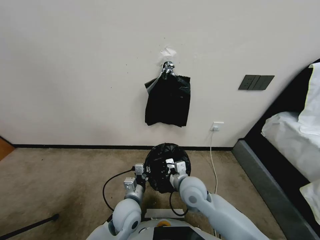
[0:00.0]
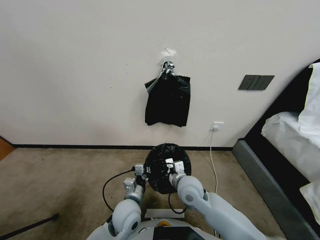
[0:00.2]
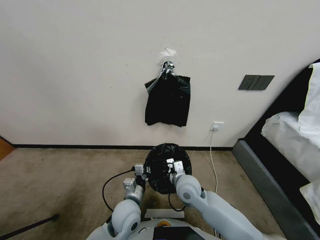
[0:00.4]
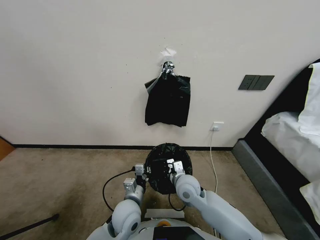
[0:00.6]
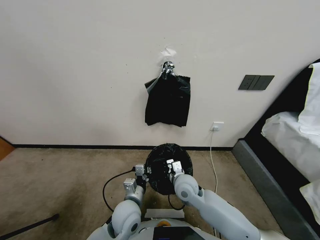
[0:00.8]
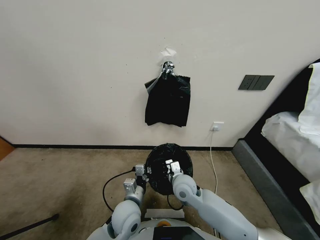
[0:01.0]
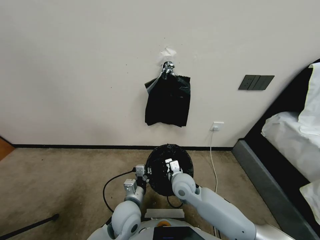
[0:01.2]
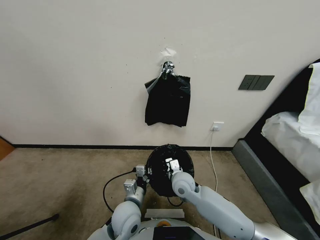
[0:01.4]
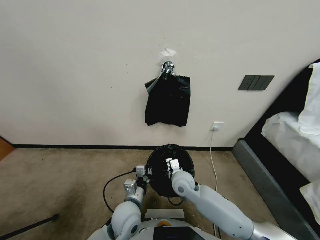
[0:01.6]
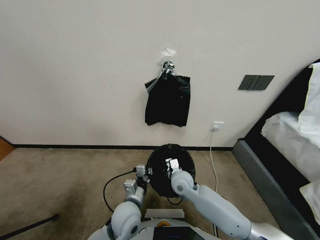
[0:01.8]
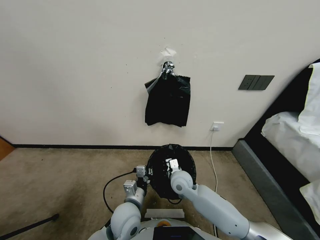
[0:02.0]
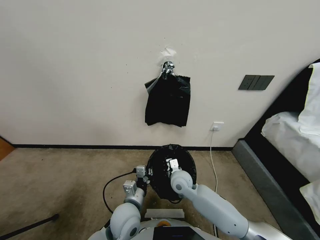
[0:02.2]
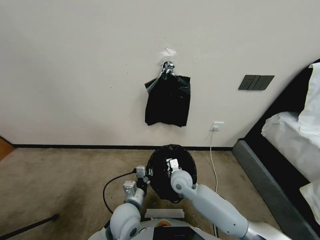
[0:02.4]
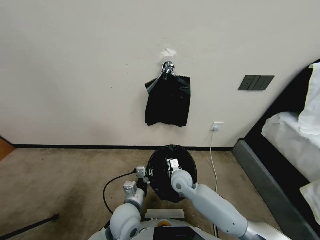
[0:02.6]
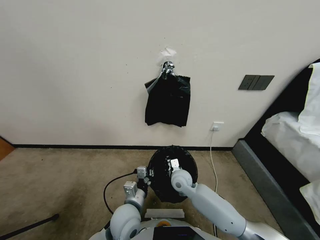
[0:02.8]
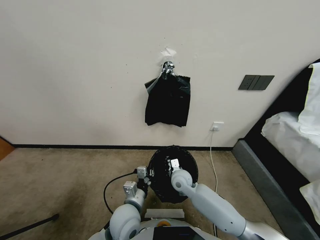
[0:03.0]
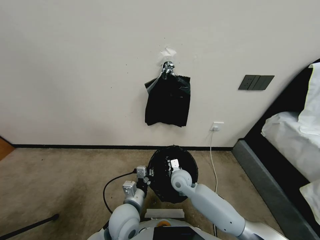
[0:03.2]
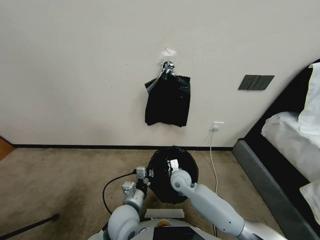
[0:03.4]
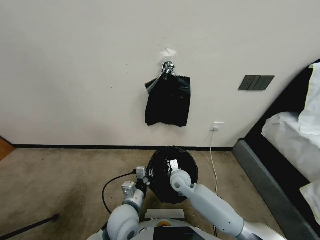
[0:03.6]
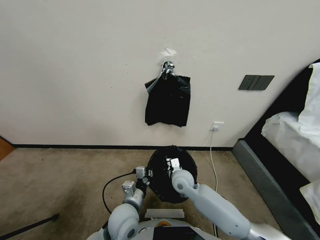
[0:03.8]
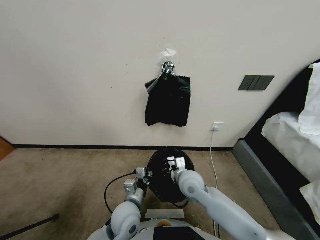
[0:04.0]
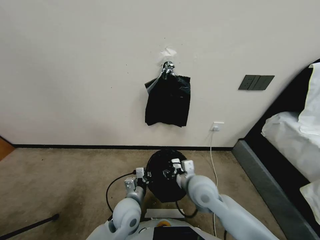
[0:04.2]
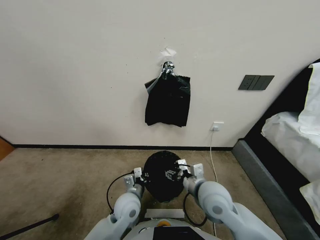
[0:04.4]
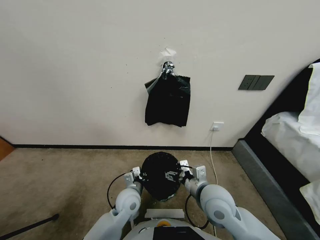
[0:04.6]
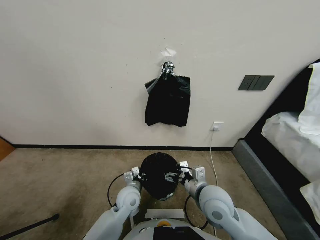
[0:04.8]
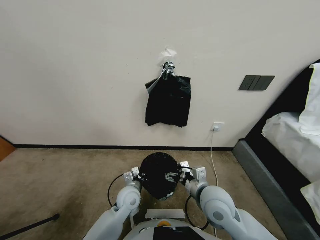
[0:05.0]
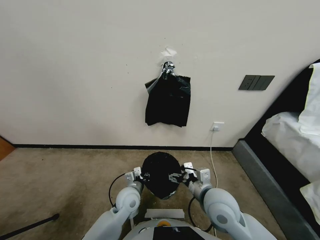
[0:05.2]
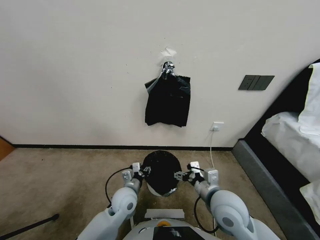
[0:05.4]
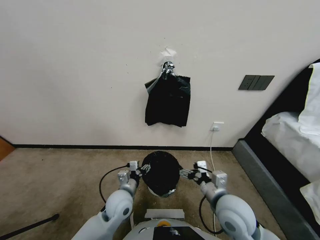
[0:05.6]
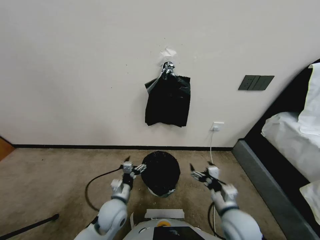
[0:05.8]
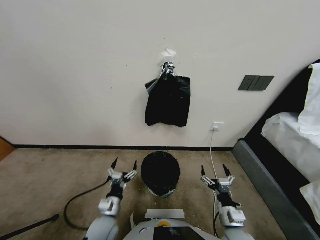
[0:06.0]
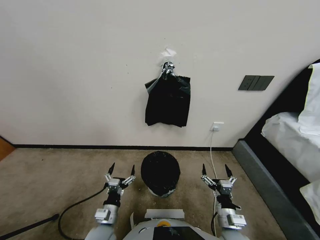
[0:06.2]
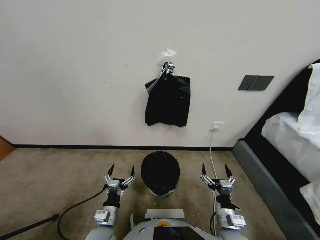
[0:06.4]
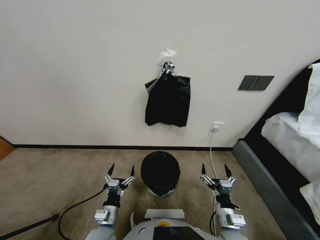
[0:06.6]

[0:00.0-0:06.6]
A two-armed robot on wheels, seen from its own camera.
Task of the whole recording: Place a trash bag onto the trash bin.
0:00.0 to 0:01.6: The right gripper moves approximately 5 cm.
0:01.6 to 0:03.2: The grippers move only a little.
0:03.2 to 0:05.0: The left gripper travels forward and downward by about 10 cm, while the right gripper travels upward, backward and to the right by about 20 cm, and opens its fingers.
0:05.0 to 0:06.6: The left gripper is displaced backward and to the left by about 15 cm, and opens its fingers. The right gripper moves downward, backward and to the right, some 15 cm.

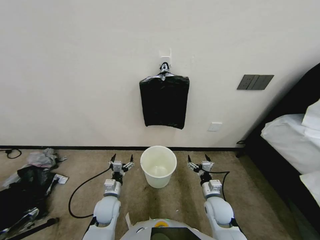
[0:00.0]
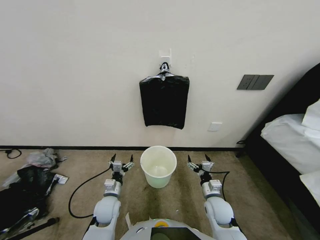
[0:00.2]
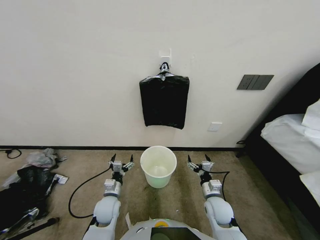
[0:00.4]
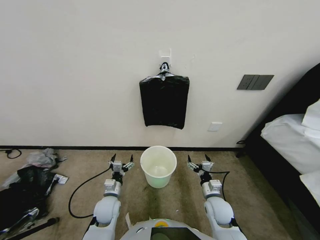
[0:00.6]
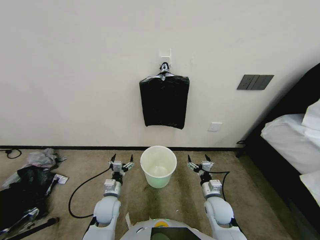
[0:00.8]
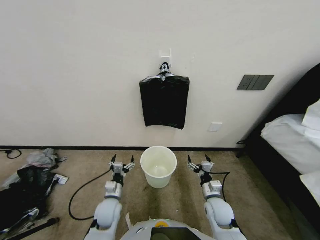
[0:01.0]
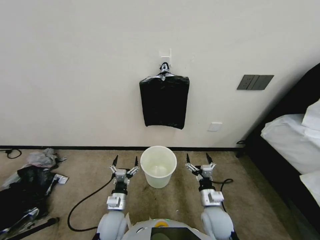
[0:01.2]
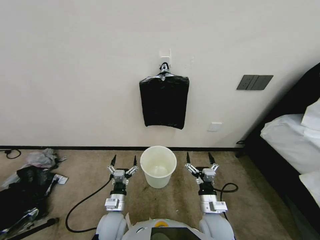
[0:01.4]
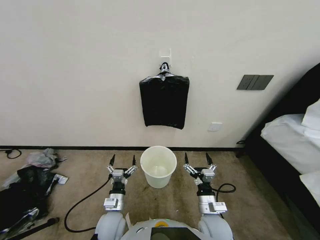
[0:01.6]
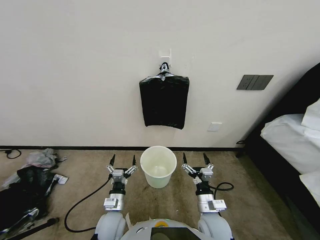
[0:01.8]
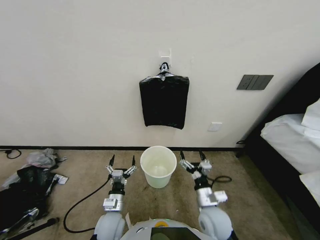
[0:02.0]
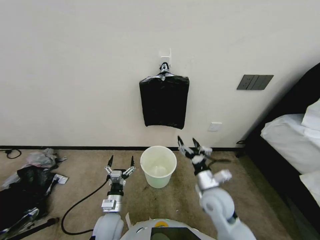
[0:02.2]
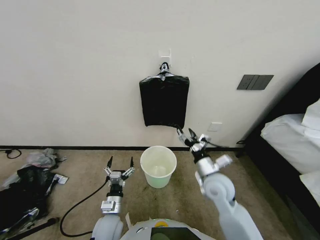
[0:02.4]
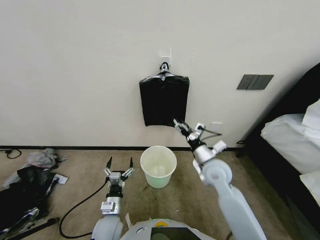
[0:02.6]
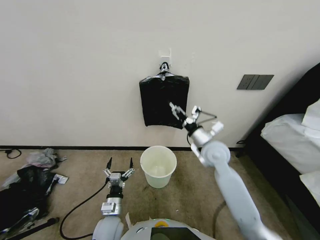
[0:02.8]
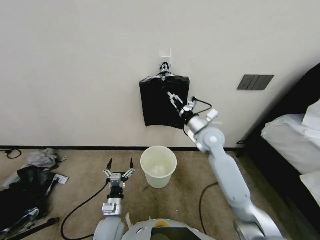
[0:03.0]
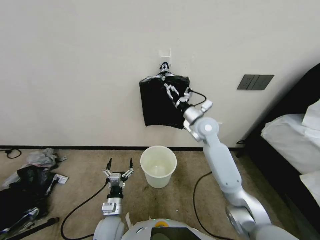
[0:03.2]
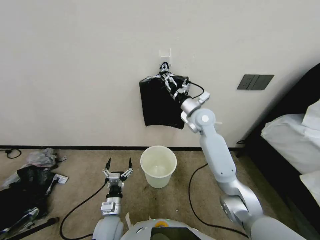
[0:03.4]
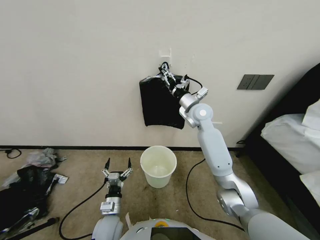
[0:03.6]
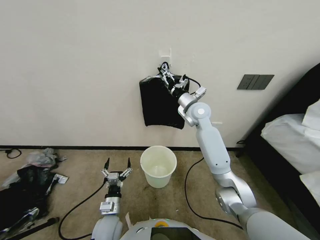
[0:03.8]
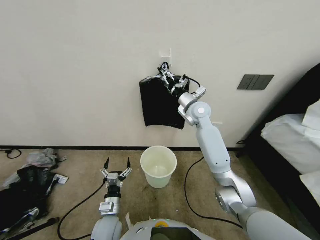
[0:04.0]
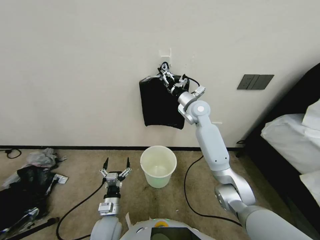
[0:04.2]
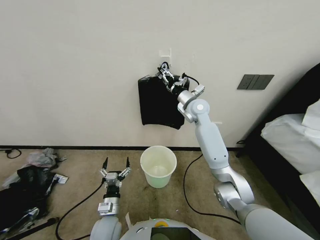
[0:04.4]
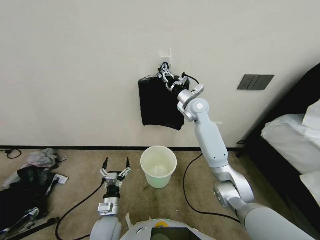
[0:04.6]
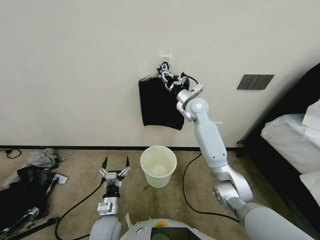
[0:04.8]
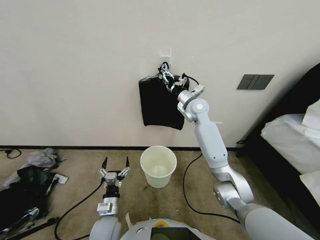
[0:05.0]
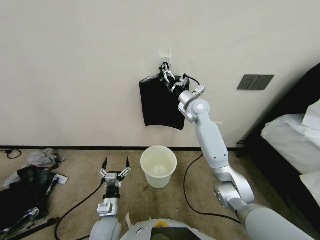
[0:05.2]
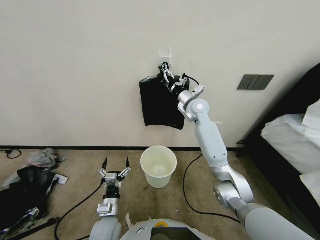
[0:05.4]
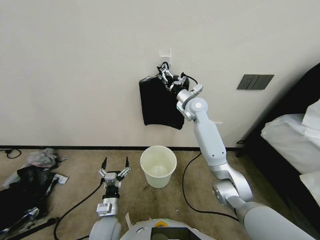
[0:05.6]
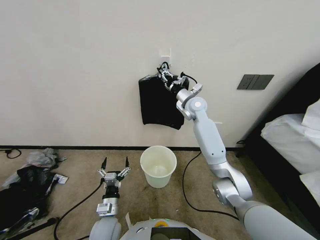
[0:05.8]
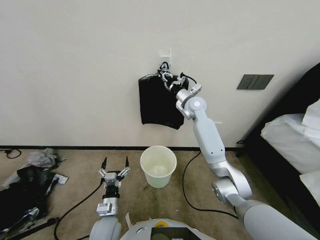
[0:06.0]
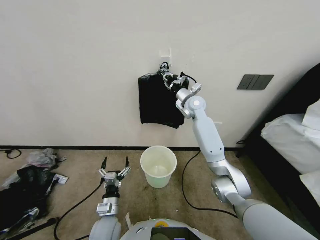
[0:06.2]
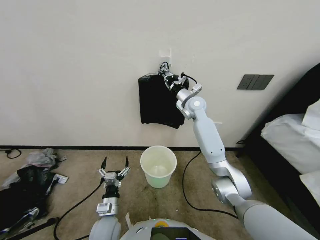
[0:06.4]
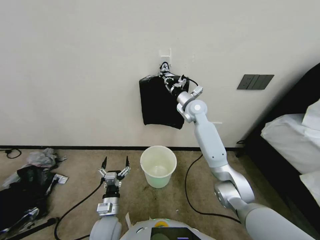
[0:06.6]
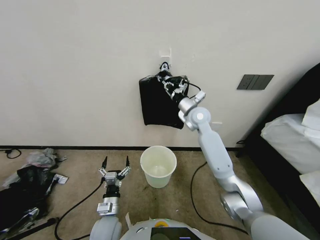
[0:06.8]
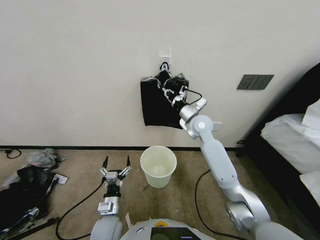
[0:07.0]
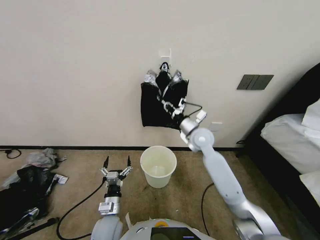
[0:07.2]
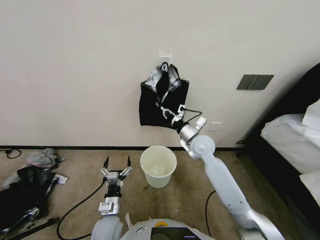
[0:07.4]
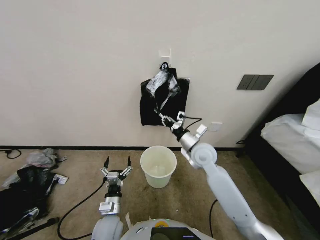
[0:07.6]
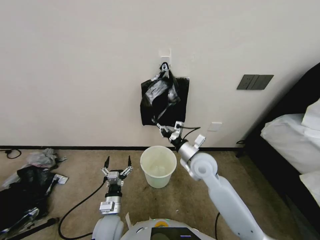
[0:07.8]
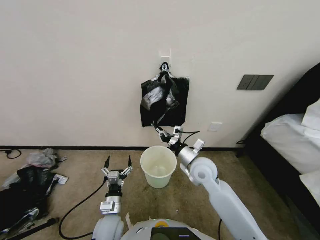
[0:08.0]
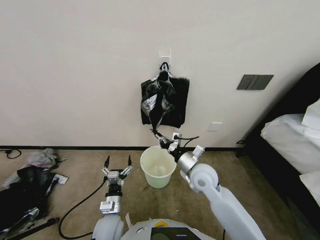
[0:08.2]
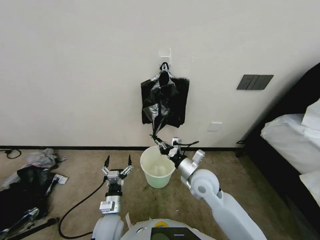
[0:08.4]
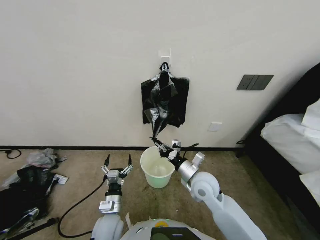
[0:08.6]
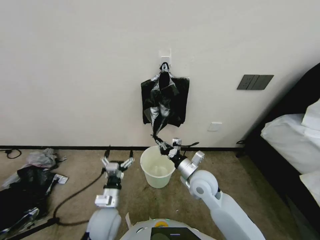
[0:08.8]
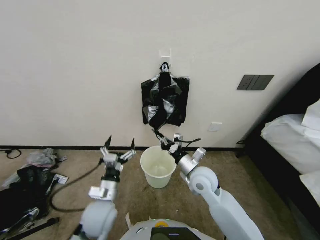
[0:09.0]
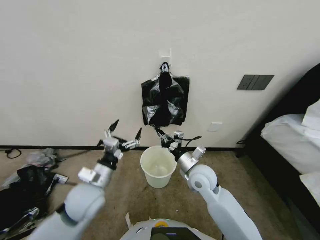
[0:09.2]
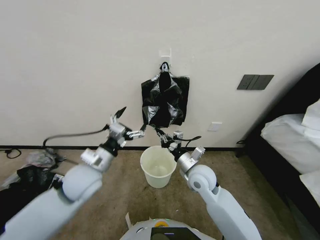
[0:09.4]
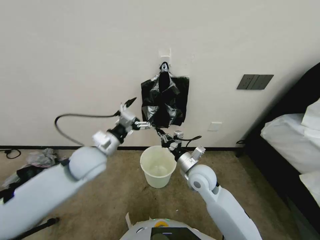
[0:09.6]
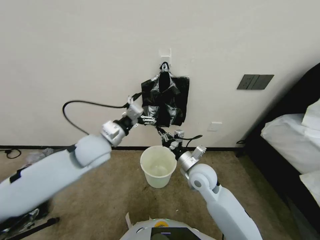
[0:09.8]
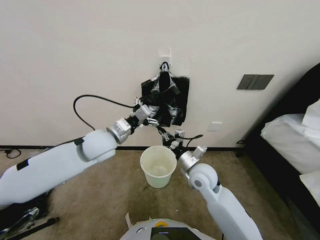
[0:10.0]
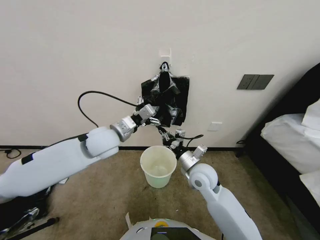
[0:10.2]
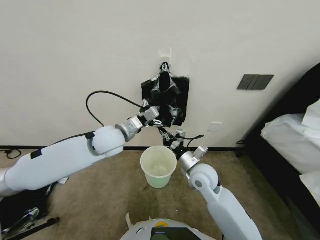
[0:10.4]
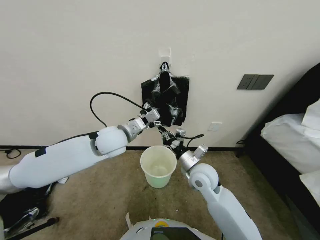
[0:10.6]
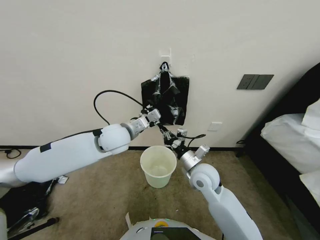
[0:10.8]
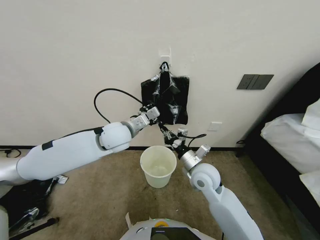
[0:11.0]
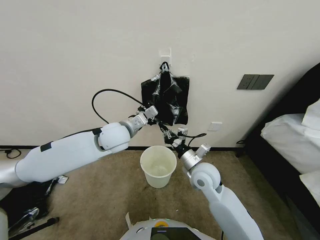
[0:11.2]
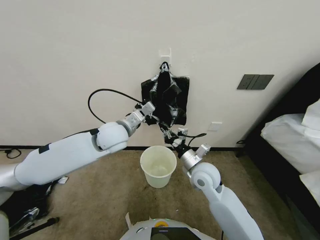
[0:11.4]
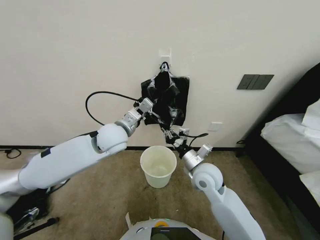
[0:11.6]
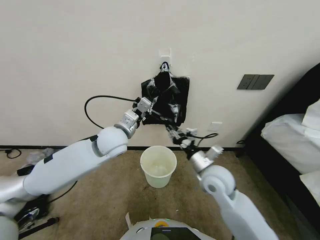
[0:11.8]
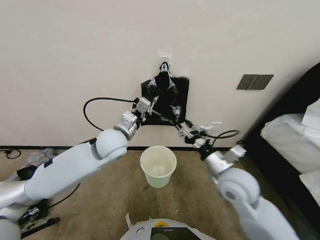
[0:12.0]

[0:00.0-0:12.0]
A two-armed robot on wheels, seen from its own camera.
Task of the whole recording: Place a trash bag onto the trash bin.
0:01.6 to 0:03.0: The right gripper goes about 30 cm forward and upward.
0:03.0 to 0:04.4: The right gripper moves forward and upward, about 15 cm.
0:04.4 to 0:06.0: The right gripper closes its fingers.
0:06.0 to 0:07.6: The right gripper is displaced backward and downward by approximately 20 cm, and closes.
0:07.6 to 0:09.0: The left gripper heads upward, covering about 10 cm. The right gripper moves backward and downward, some 10 cm.
0:09.0 to 0:10.4: The left gripper moves upward and forward, some 25 cm.
0:10.4 to 0:12.0: The left gripper closes its fingers. Meanwhile the right gripper moves to the right, approximately 5 cm, and opens its fingers.

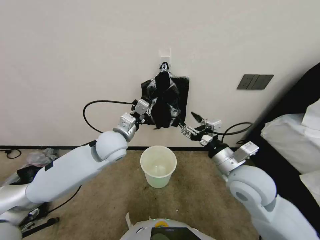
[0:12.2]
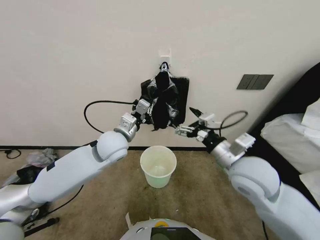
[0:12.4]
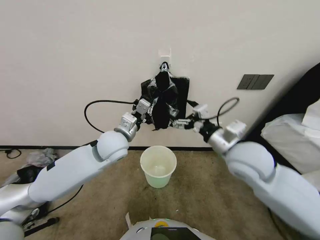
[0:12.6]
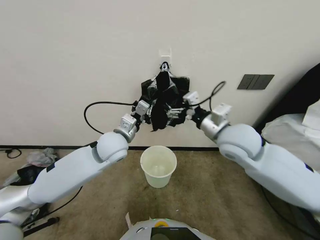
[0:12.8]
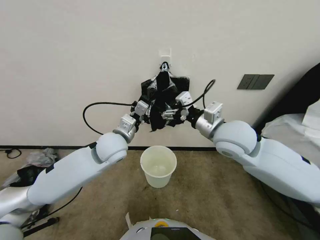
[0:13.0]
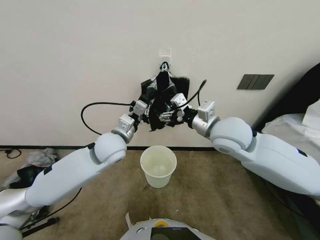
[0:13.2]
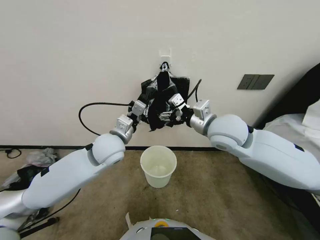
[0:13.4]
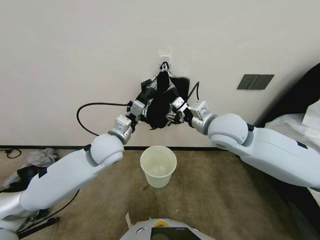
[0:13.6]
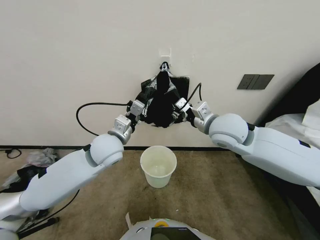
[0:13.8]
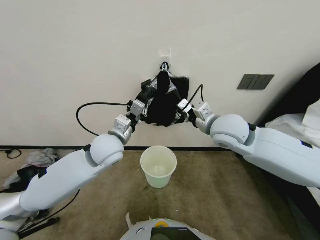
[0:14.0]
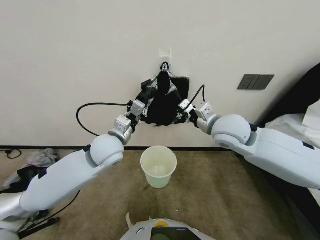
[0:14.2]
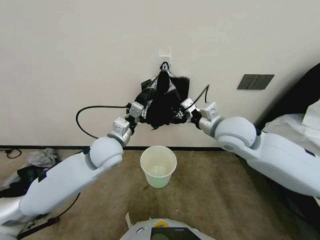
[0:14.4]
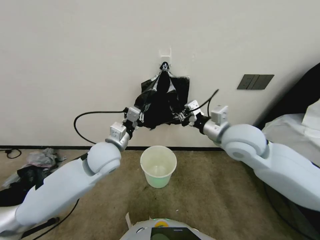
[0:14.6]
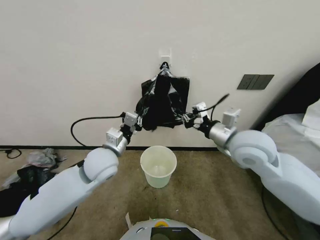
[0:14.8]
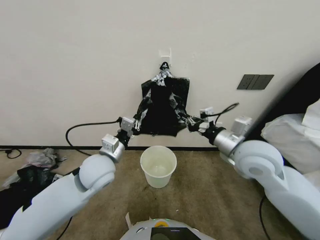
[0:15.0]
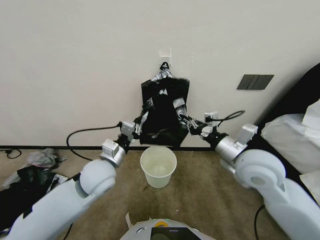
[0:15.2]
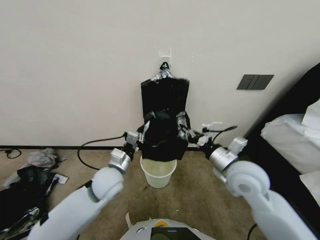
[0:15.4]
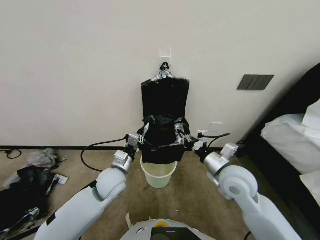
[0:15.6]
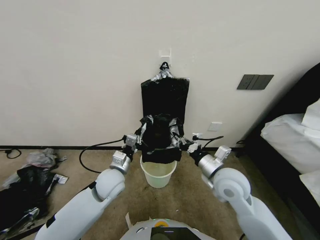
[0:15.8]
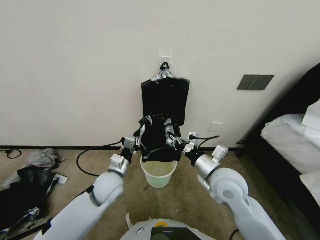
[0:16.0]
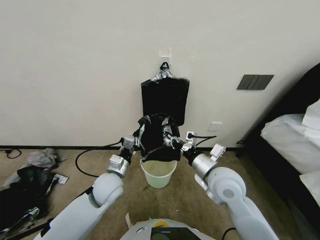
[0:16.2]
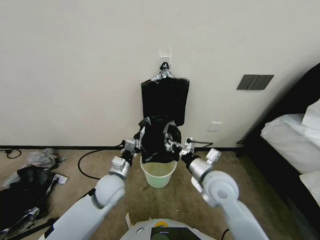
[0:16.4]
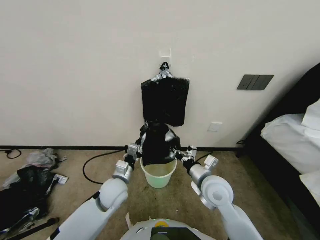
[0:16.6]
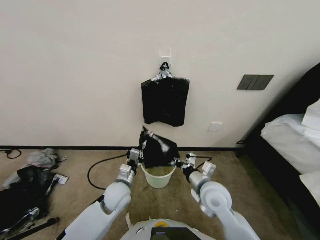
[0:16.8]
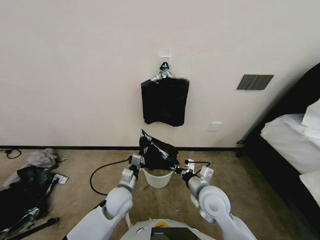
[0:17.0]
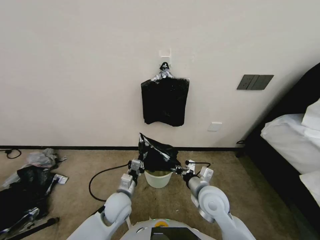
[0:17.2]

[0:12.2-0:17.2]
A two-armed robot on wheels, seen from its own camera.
Task of the whole recording: Place a trash bag onto the trash bin.
0:12.2 to 0:13.8: The right gripper moves forward and upward, approximately 15 cm.
0:13.8 to 0:15.6: The grippers both shift downward and backward by approximately 15 cm. The right gripper closes.
0:15.6 to 0:17.2: The left gripper shifts roughly 10 cm downward. The right gripper travels downward and to the left by some 10 cm.
